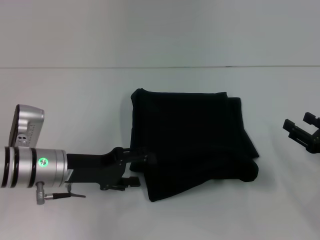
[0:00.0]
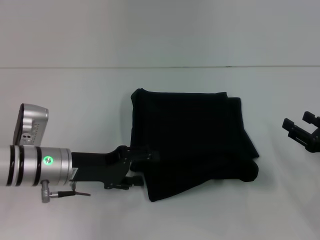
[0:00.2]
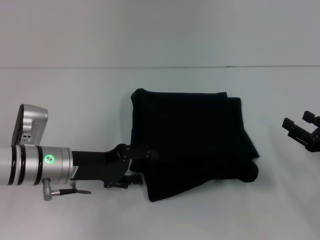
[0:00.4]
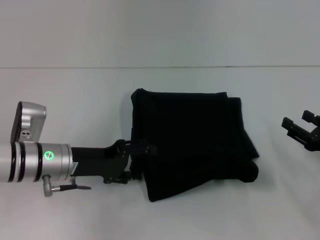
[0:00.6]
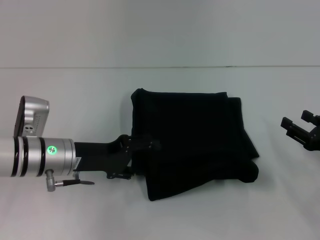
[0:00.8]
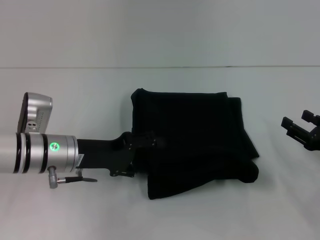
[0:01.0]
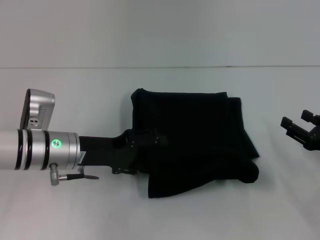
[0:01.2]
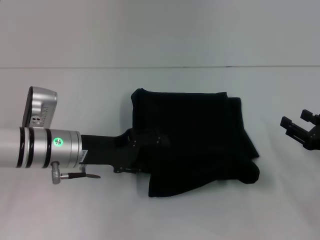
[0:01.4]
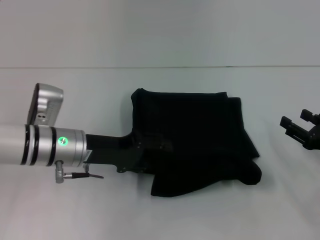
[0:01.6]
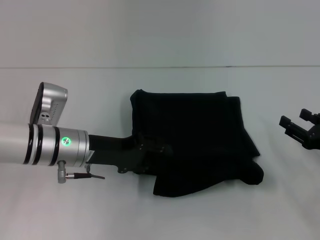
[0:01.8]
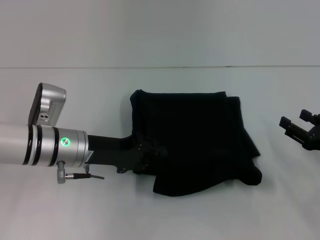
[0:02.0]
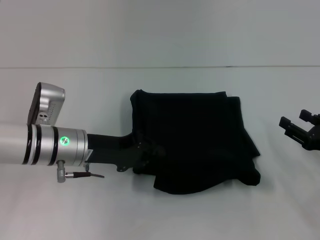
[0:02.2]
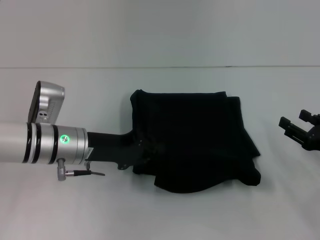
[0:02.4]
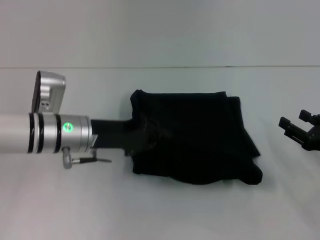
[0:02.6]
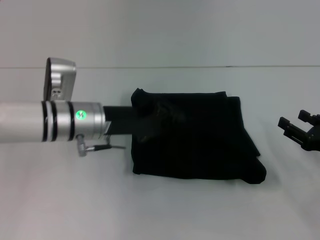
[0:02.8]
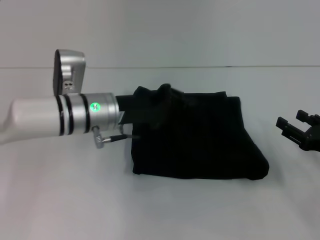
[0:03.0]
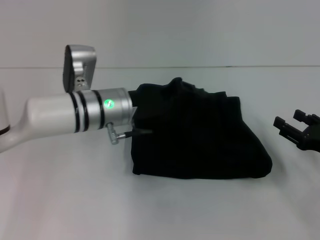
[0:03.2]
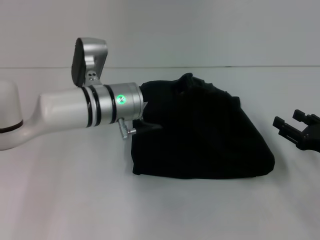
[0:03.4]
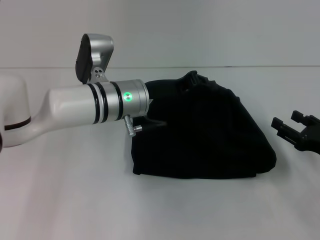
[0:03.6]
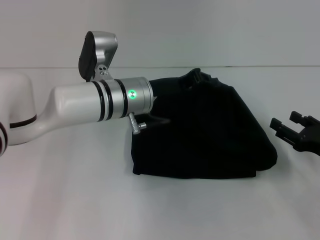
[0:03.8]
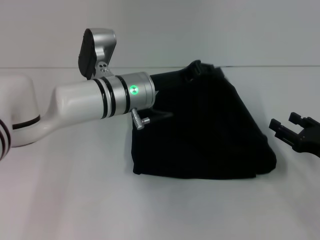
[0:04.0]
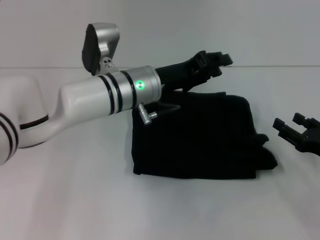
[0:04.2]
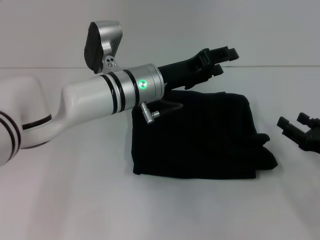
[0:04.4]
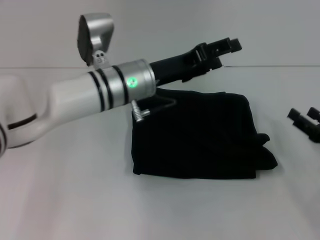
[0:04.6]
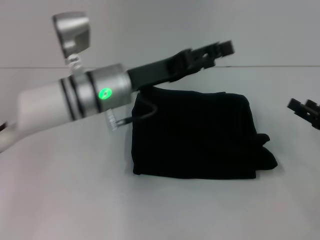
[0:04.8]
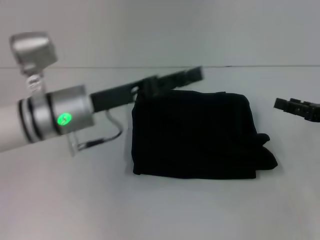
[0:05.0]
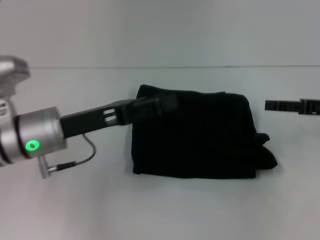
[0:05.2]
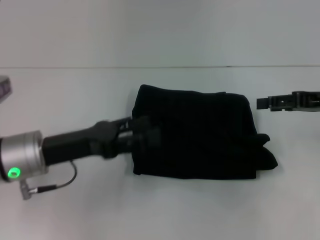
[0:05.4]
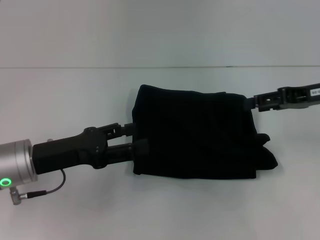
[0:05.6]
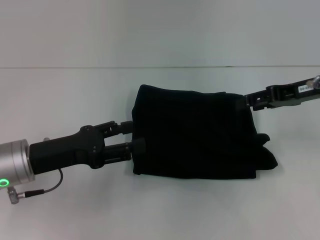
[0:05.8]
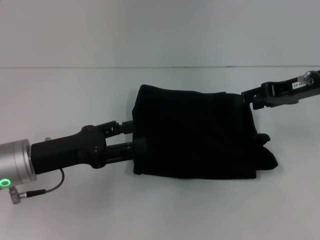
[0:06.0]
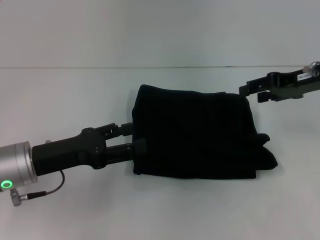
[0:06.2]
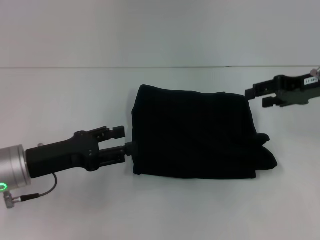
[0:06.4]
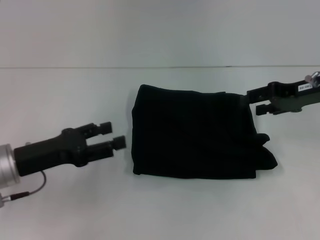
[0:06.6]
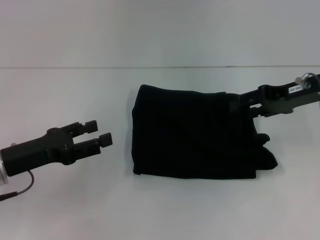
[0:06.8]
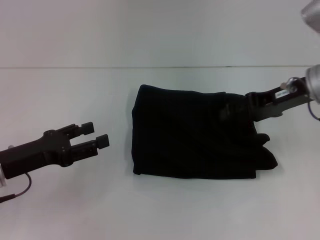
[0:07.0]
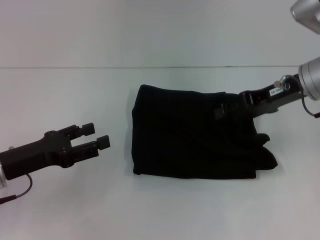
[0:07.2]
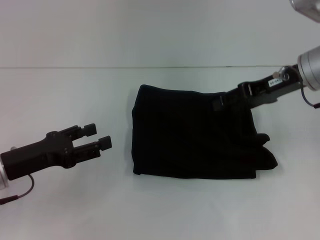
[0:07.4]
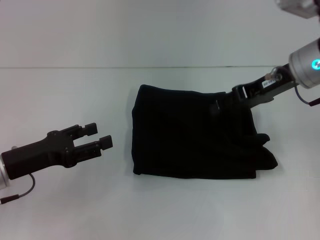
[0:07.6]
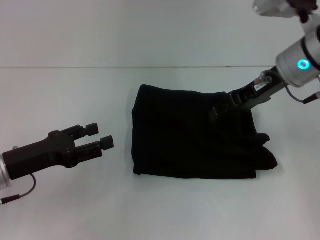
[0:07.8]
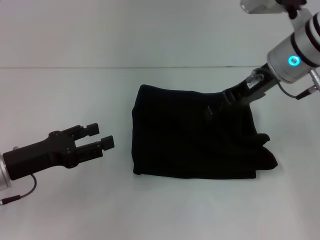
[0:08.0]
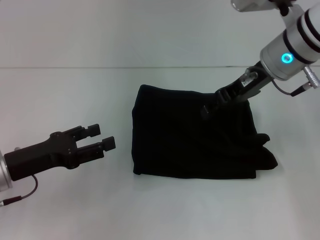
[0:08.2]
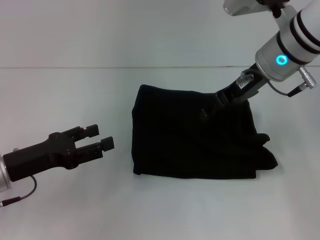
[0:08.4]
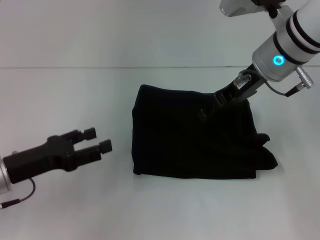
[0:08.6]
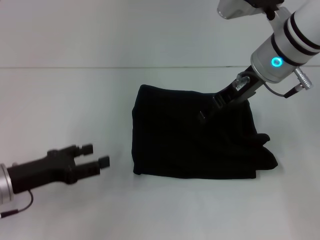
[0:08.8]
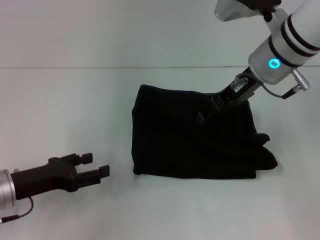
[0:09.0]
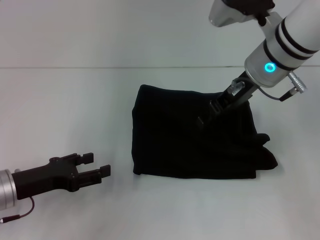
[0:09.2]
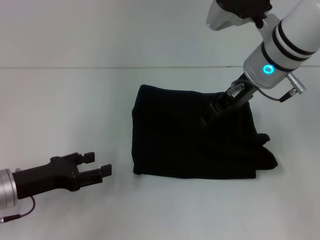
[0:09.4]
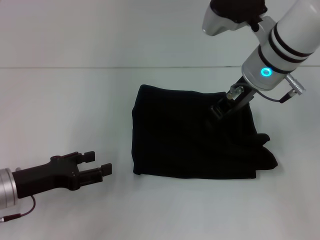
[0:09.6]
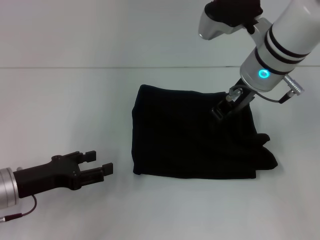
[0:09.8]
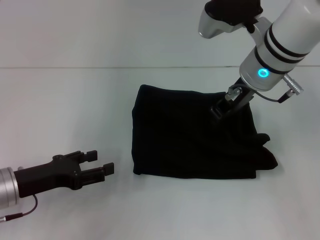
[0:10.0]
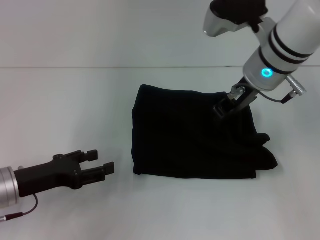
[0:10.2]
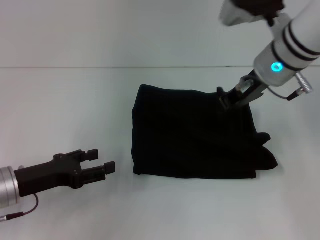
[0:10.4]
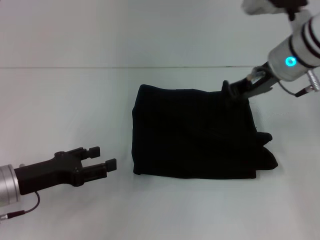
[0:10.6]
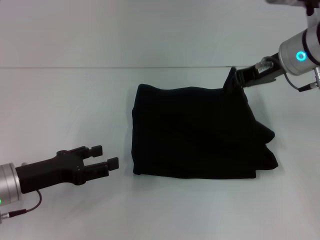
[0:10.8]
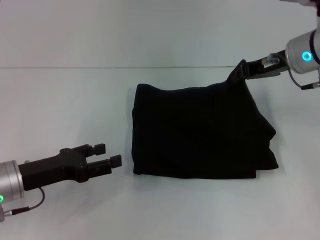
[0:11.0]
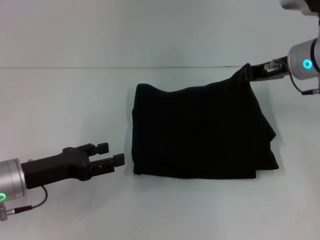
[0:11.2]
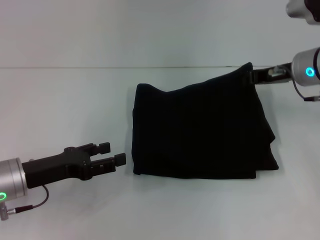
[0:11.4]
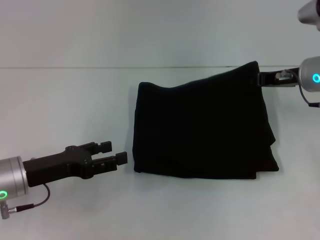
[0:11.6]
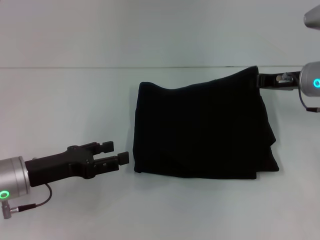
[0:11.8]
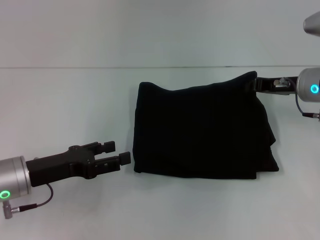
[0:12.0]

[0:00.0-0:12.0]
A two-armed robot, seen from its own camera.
0:00.0 to 0:01.6: The grippers stay close to where they were, moving slightly.
0:01.6 to 0:03.0: The left gripper is displaced to the right by roughly 5 cm, and closes up.
0:03.0 to 0:04.4: The left gripper is displaced to the right by approximately 5 cm, and opens.
0:04.4 to 0:06.0: The left gripper moves to the left and backward, roughly 20 cm, and opens its fingers; the right gripper shifts some 20 cm upward and forward.
0:06.0 to 0:07.6: The right gripper is displaced to the left by approximately 5 cm.
0:07.6 to 0:09.0: The right gripper moves to the left, some 5 cm.
0:09.0 to 0:10.4: The right gripper closes its fingers.
0:10.4 to 0:12.0: The right gripper goes roughly 10 cm to the right and downward.

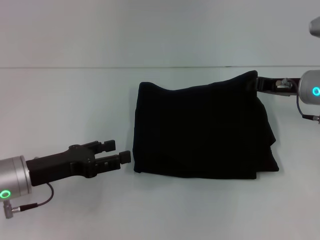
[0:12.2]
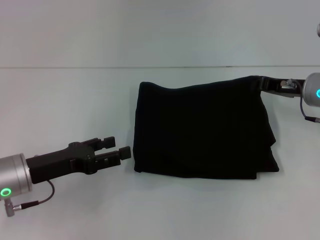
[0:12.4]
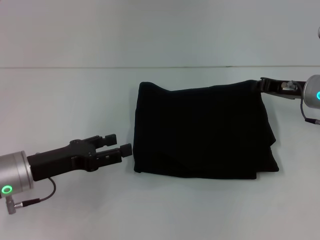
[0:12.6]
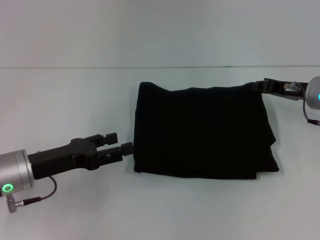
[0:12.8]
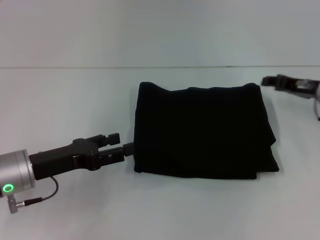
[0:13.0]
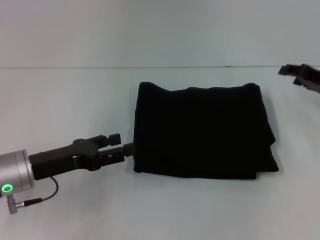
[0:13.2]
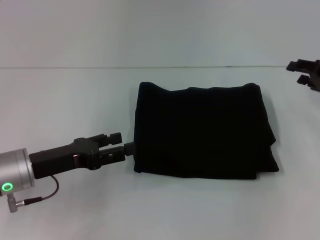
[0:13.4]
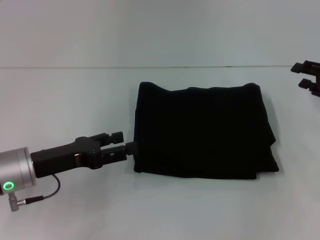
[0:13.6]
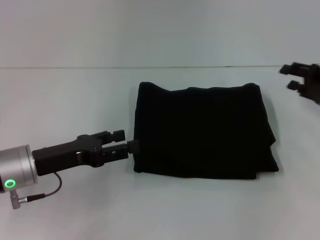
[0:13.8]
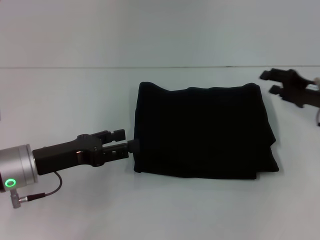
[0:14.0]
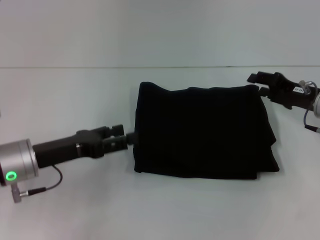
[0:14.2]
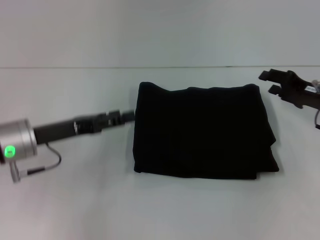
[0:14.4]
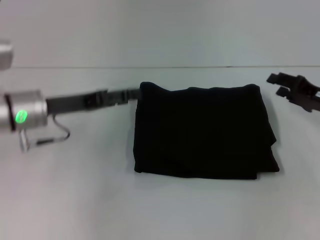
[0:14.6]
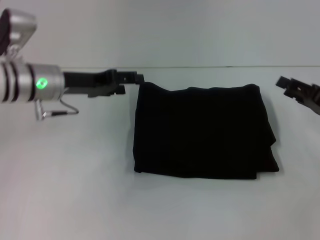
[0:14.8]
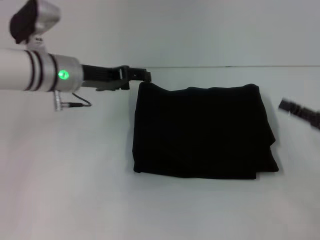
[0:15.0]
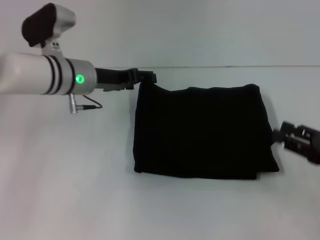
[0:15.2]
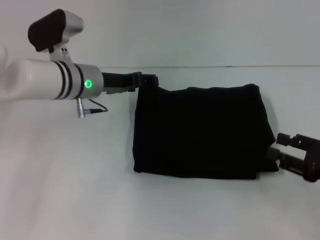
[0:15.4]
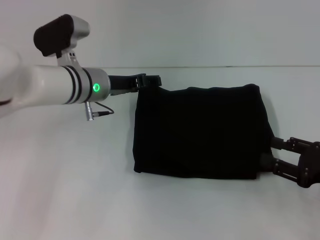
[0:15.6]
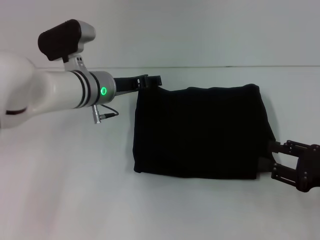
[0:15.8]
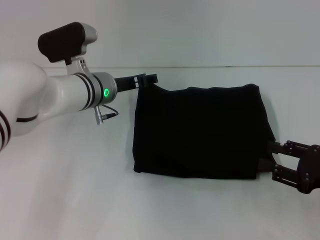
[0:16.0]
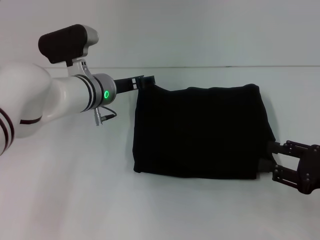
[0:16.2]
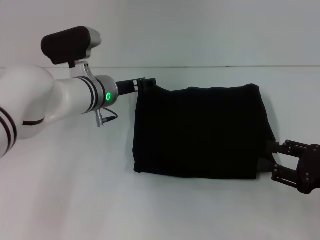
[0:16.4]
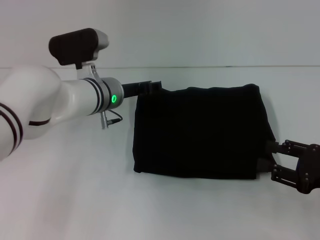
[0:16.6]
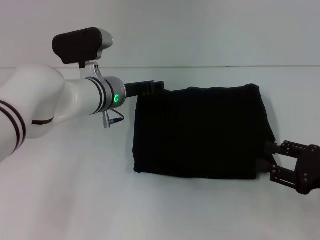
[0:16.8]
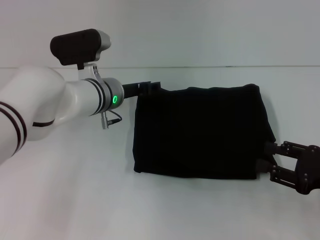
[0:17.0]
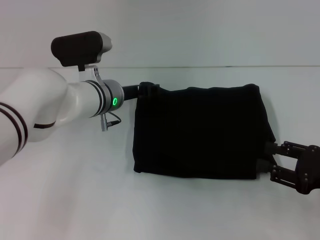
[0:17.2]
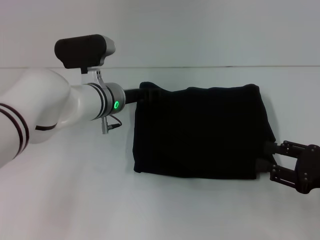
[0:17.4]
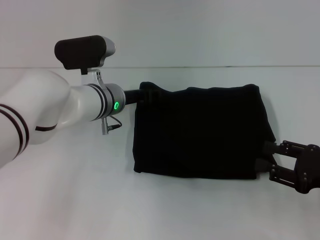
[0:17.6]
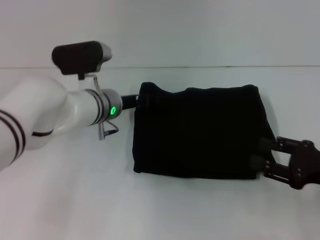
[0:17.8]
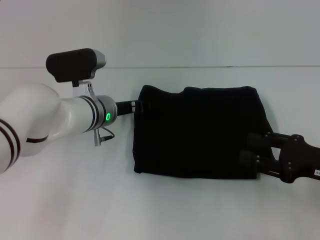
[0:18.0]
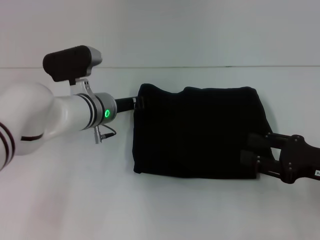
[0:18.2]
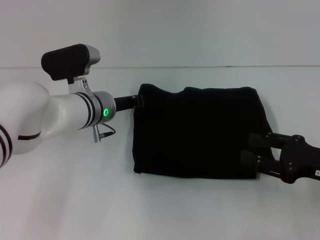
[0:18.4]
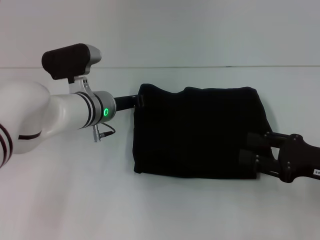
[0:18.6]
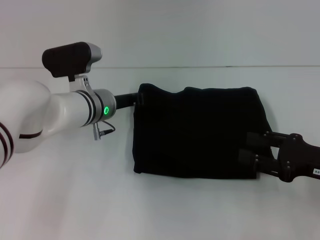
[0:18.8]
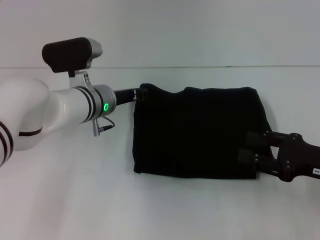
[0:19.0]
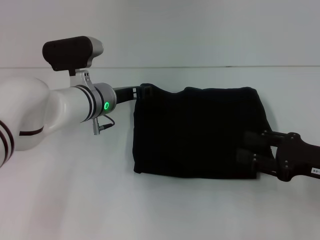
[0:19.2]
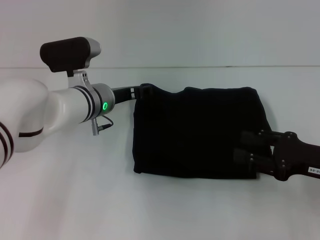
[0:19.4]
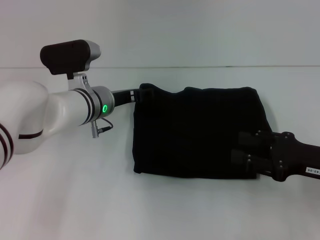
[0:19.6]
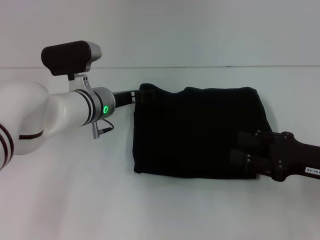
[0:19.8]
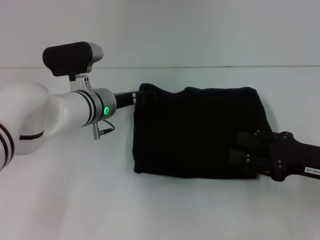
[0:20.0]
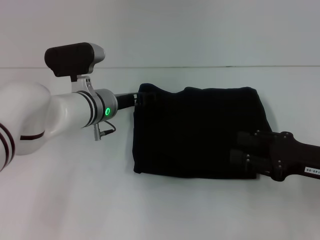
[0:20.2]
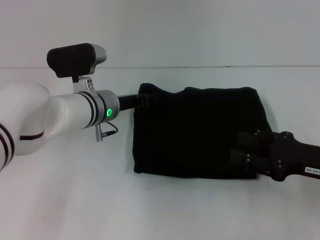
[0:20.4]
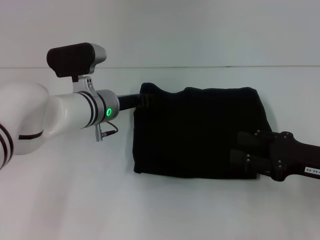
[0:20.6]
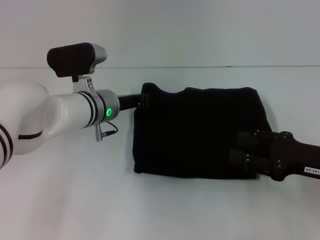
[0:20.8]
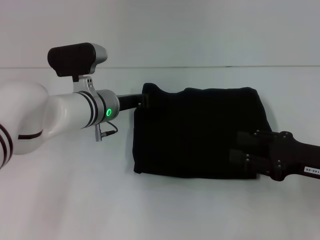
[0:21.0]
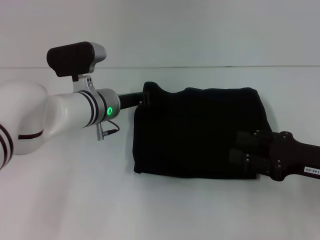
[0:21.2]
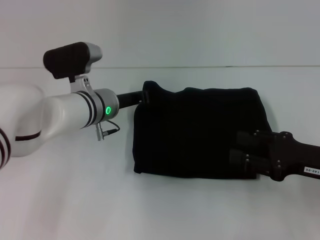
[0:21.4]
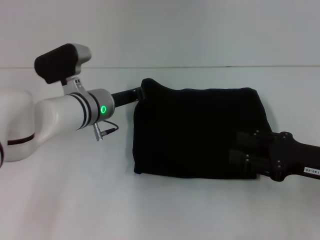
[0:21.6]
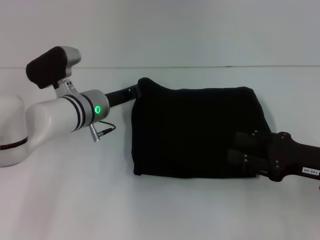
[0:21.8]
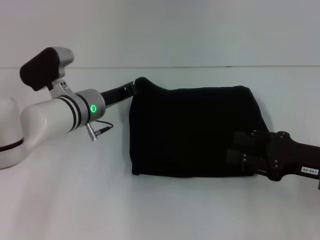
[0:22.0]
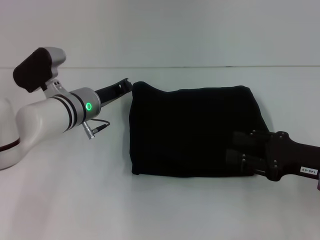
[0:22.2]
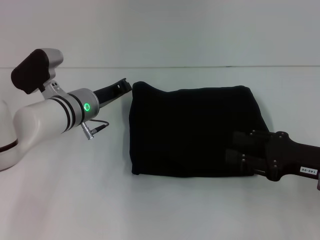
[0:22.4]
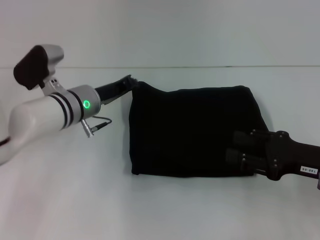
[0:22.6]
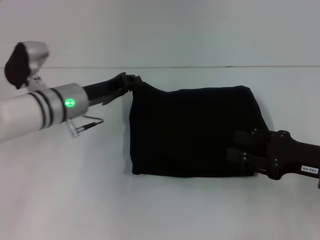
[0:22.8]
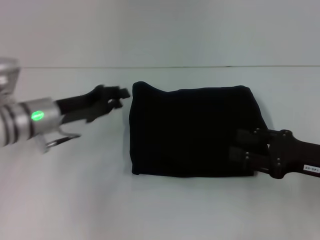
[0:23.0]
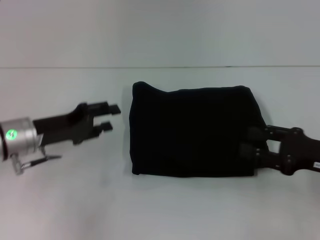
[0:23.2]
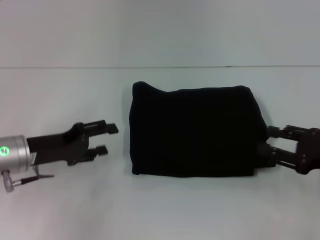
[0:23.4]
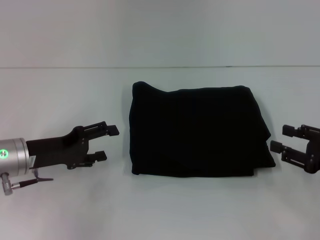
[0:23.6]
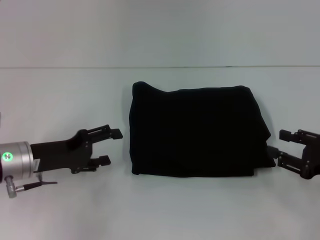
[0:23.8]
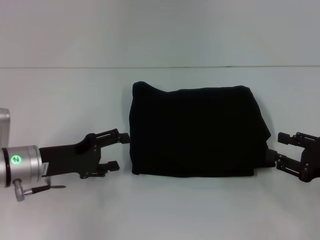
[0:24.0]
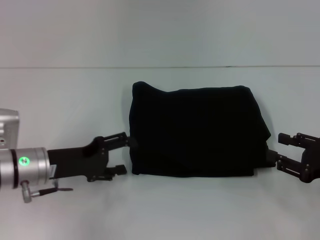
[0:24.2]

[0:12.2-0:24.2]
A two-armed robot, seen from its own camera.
0:12.2 to 0:13.8: The right gripper is displaced to the right by roughly 10 cm, and opens.
0:13.8 to 0:15.2: The right gripper moves backward, roughly 10 cm, while the left gripper shifts roughly 15 cm forward and to the right.
0:15.2 to 0:16.6: The left gripper goes approximately 5 cm to the right.
0:16.6 to 0:18.2: The grippers move only a little.
0:18.2 to 0:19.8: The left gripper closes, then reopens.
0:19.8 to 0:21.2: The left gripper closes its fingers.
0:22.6 to 0:24.2: The left gripper shifts about 10 cm backward and to the left, and opens. The right gripper goes approximately 5 cm to the right.
